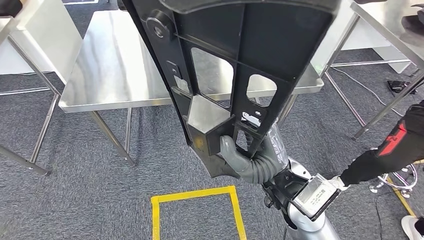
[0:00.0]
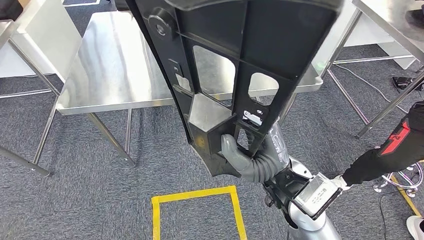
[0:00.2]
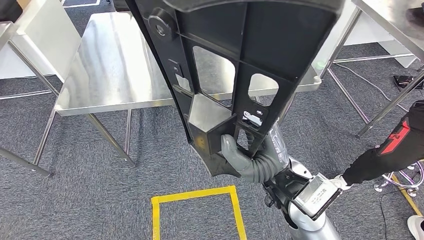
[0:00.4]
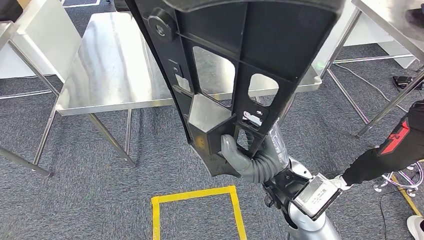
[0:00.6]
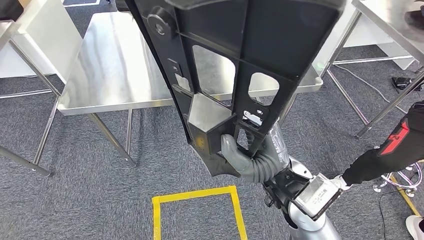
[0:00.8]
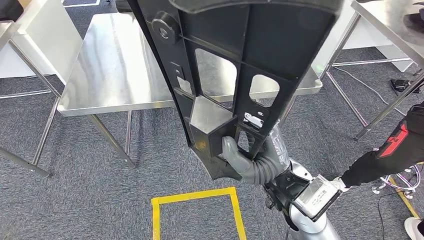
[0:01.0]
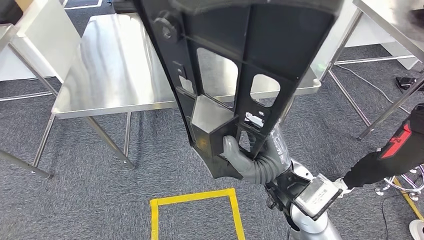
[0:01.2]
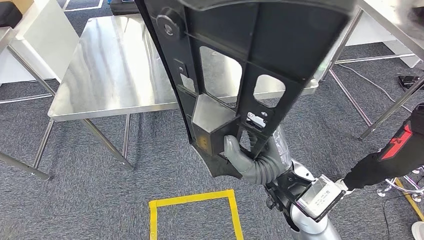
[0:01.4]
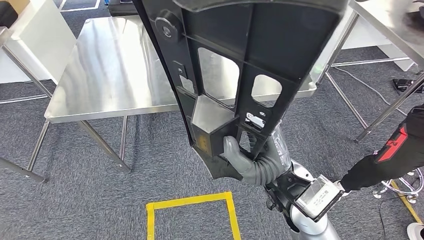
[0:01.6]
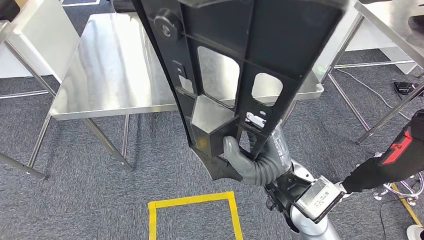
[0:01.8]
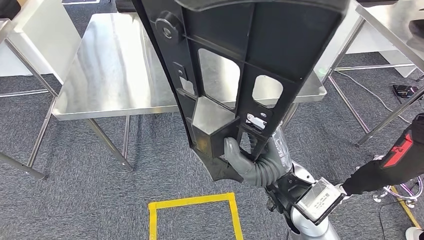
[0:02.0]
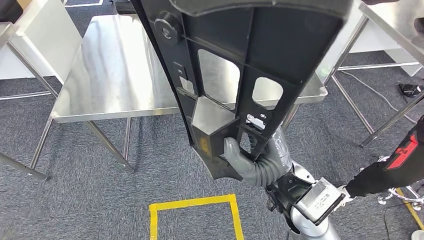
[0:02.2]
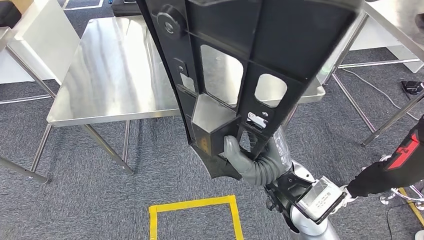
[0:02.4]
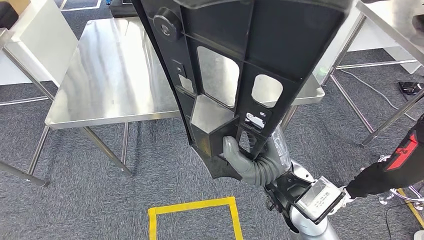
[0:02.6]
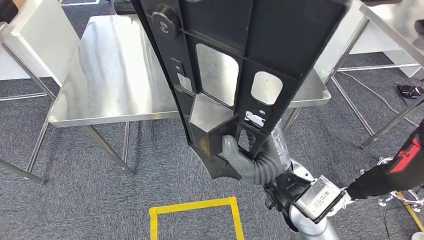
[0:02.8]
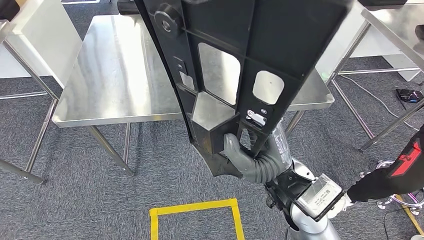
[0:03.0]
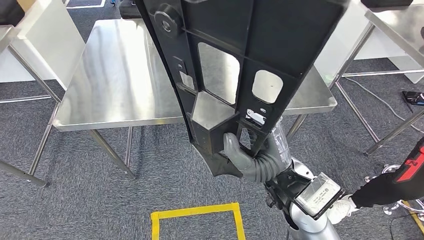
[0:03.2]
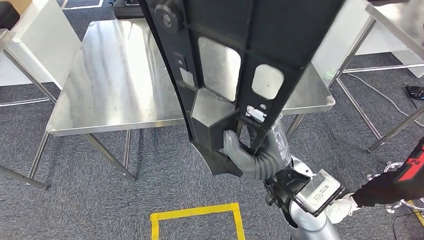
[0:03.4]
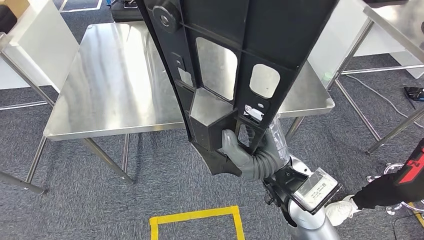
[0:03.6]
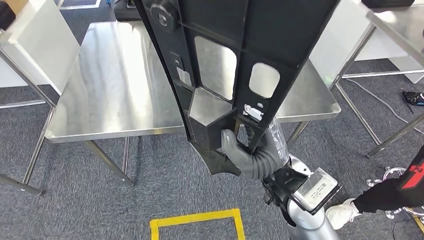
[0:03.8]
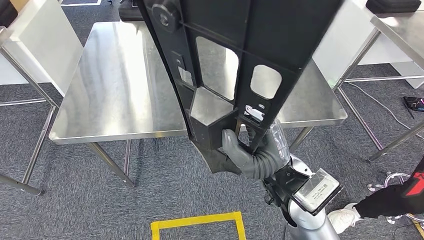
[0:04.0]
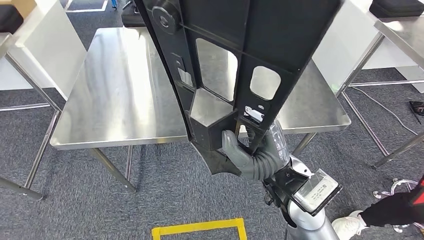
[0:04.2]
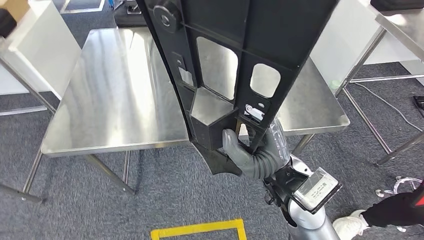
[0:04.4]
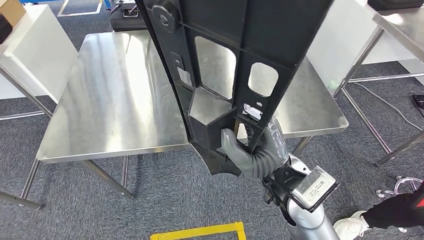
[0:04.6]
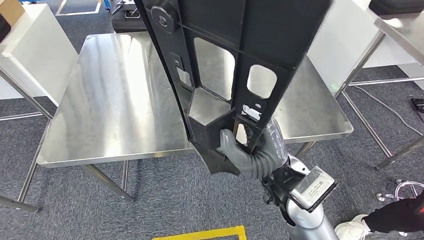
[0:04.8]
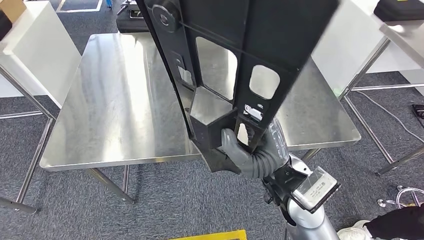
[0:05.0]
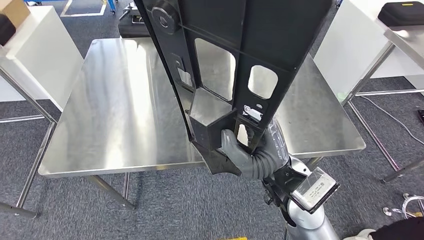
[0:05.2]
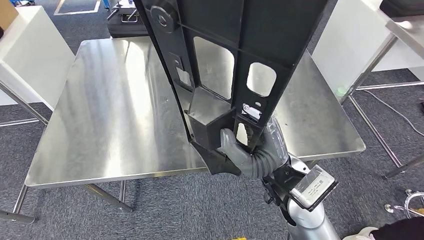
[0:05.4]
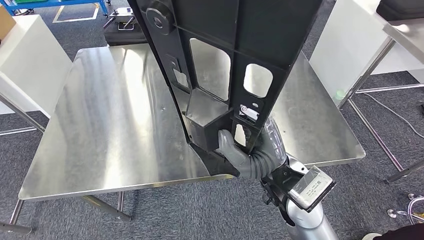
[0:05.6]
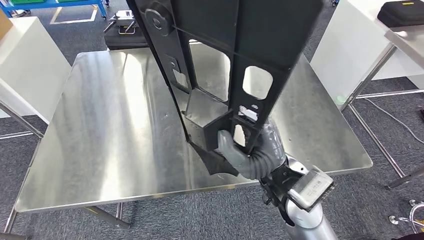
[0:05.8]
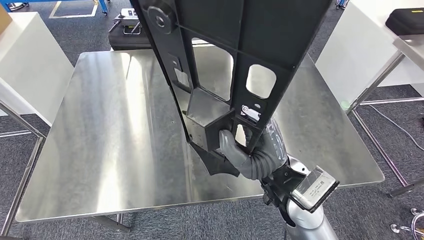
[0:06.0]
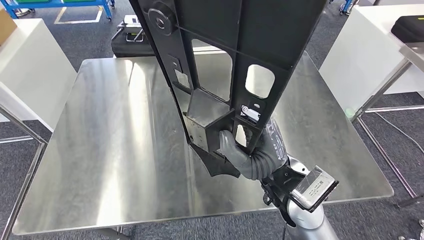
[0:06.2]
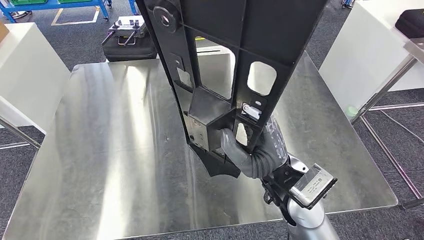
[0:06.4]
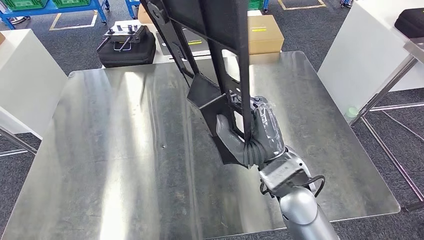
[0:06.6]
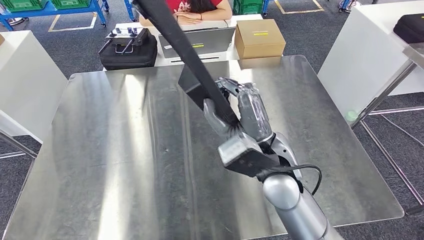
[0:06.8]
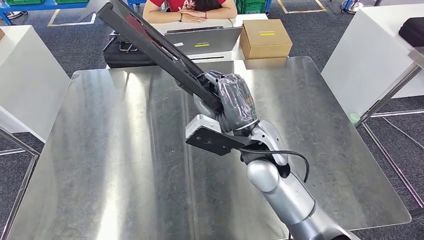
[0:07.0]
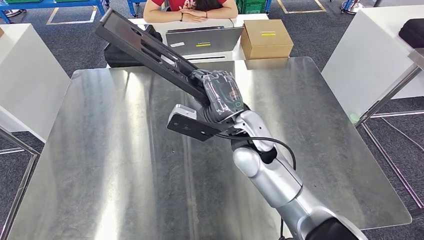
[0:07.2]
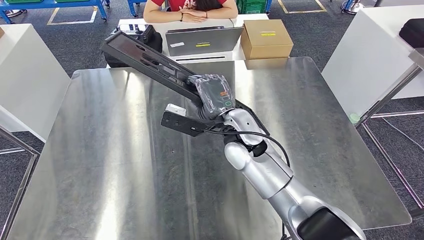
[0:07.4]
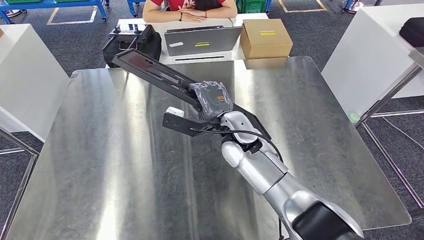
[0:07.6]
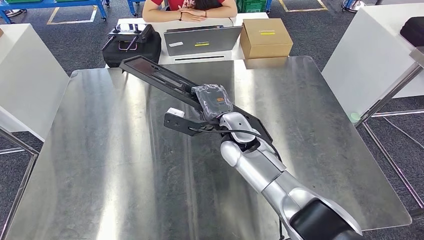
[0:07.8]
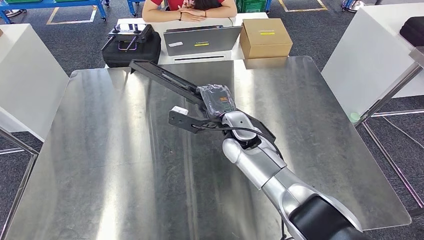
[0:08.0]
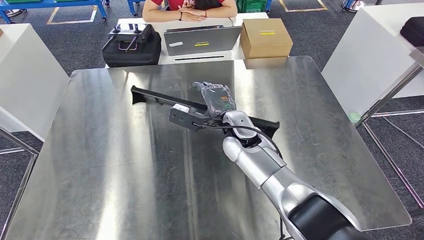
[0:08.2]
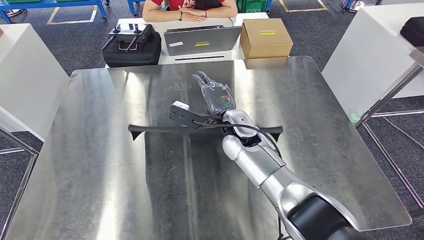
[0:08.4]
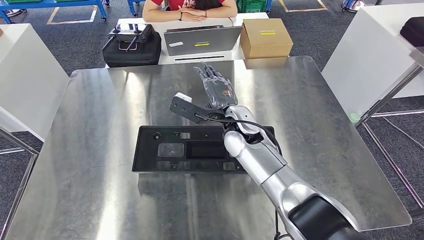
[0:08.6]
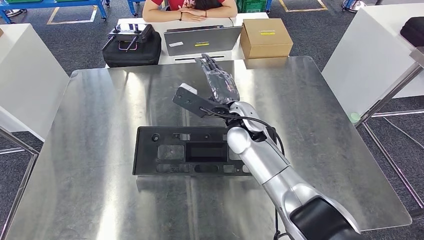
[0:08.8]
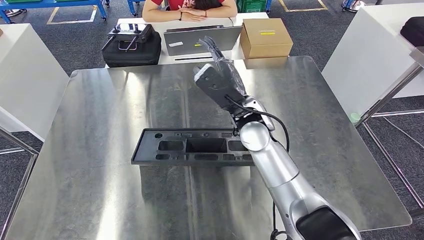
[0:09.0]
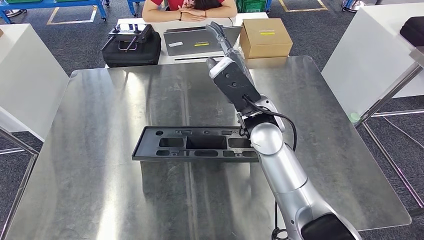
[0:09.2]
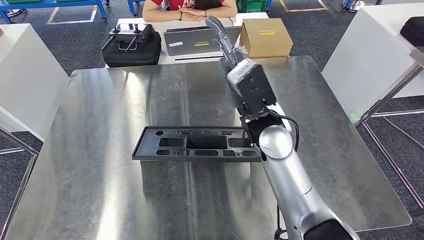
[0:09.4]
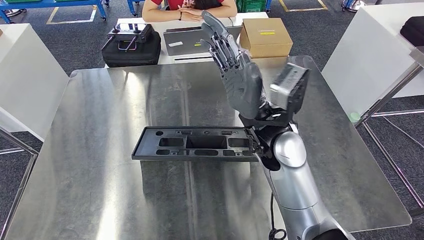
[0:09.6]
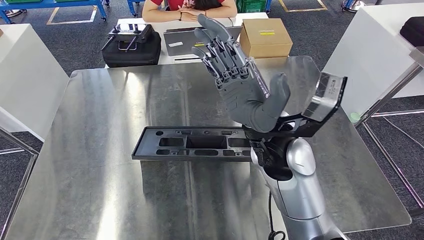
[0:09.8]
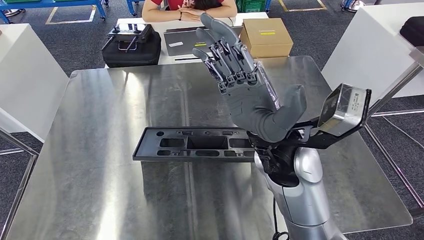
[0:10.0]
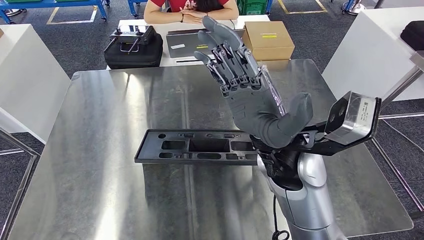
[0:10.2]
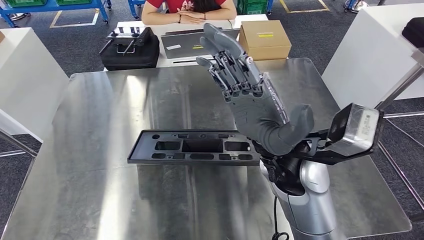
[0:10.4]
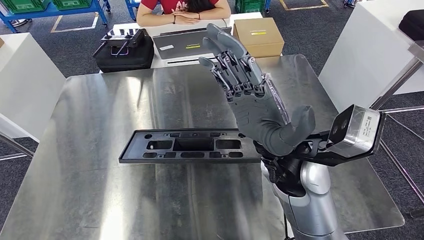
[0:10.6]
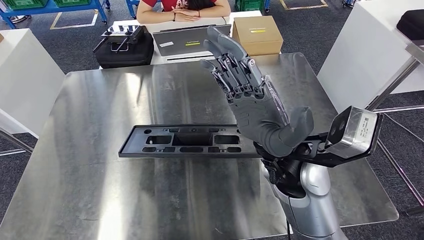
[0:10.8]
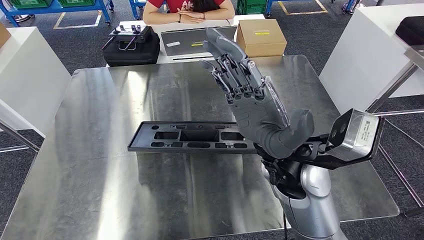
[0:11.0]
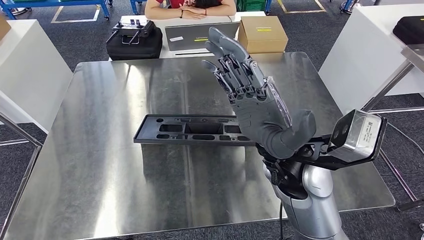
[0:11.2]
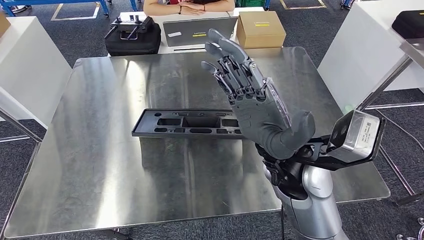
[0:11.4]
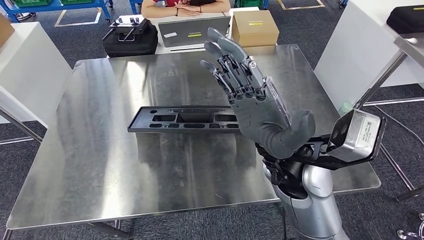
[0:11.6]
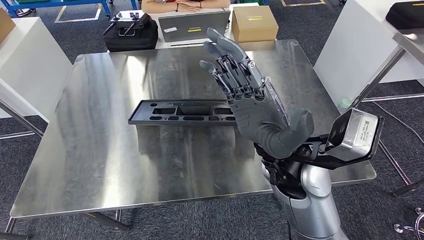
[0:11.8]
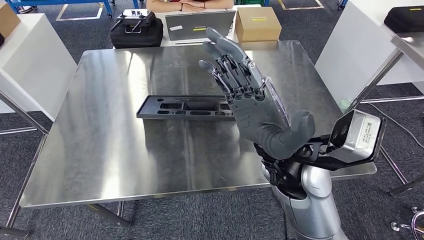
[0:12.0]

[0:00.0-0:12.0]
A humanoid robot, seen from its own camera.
Step, 0:00.0 to 0:02.8: Move the large parts to the workbench.

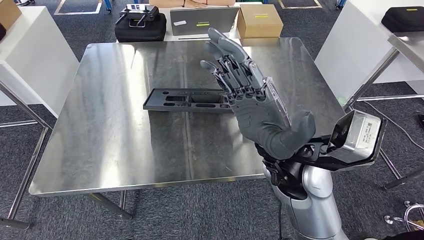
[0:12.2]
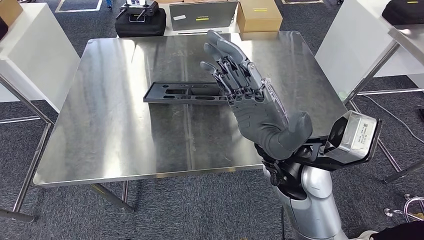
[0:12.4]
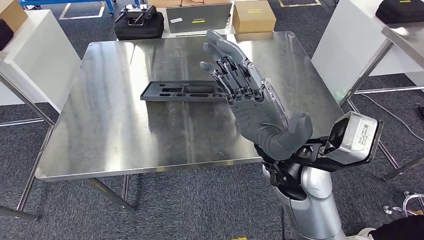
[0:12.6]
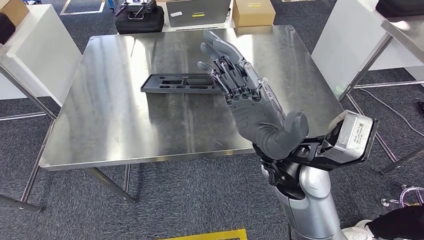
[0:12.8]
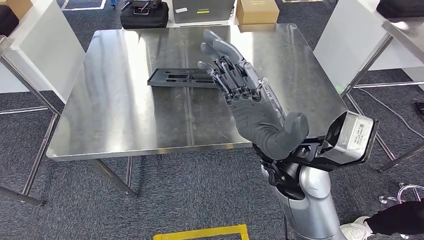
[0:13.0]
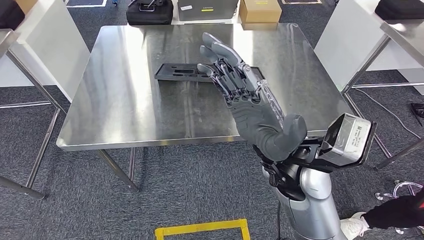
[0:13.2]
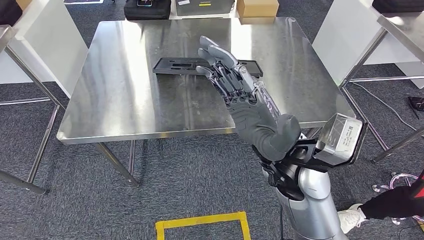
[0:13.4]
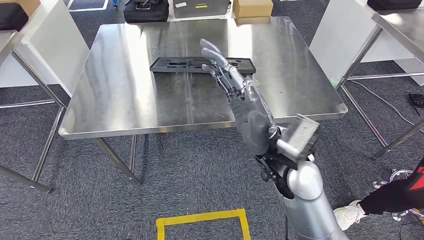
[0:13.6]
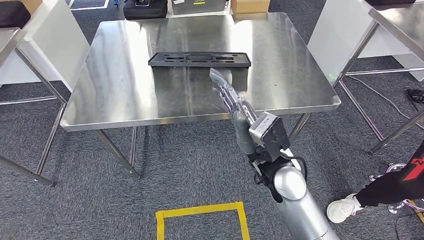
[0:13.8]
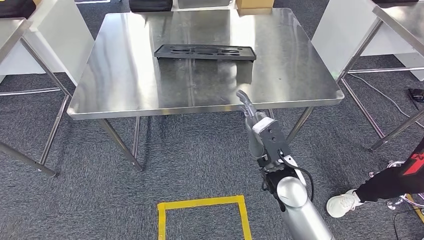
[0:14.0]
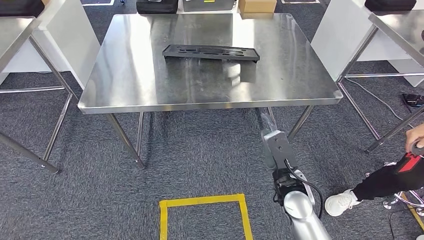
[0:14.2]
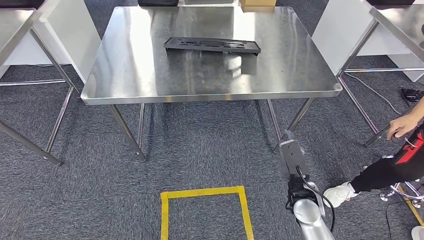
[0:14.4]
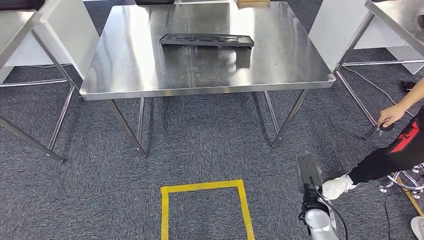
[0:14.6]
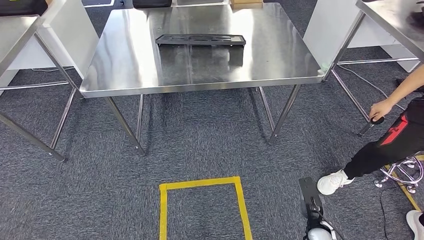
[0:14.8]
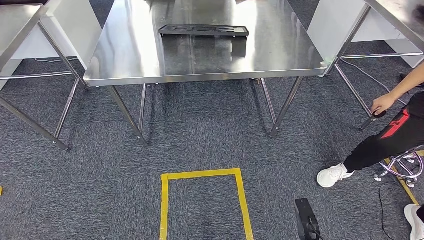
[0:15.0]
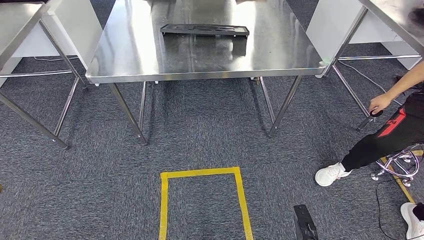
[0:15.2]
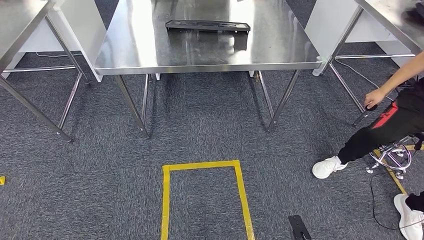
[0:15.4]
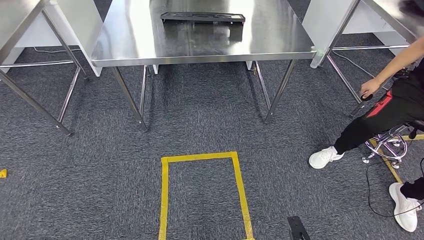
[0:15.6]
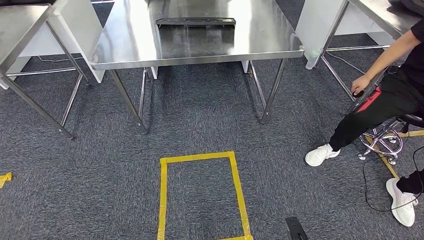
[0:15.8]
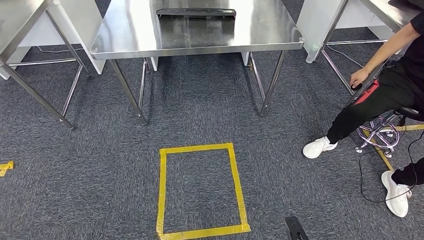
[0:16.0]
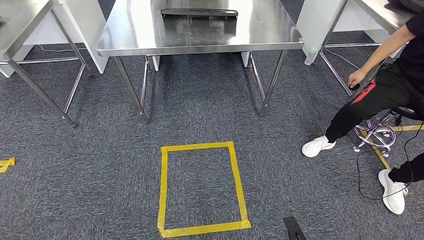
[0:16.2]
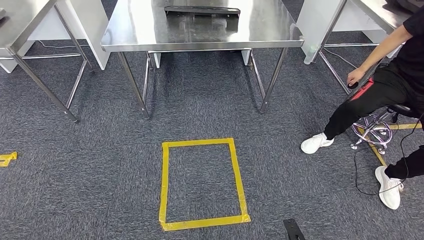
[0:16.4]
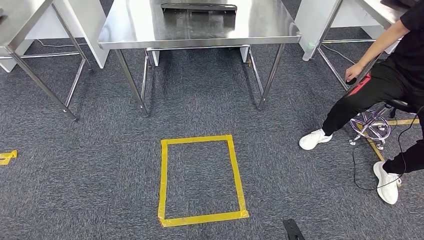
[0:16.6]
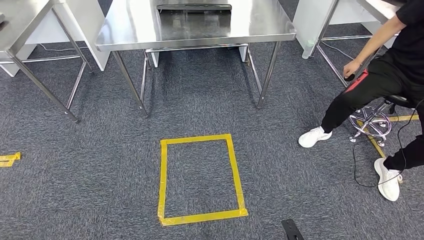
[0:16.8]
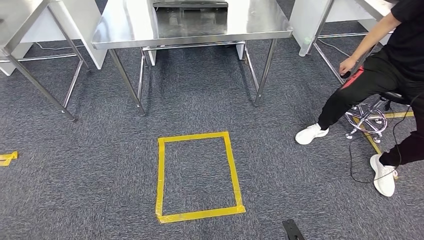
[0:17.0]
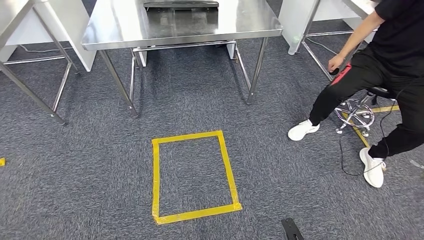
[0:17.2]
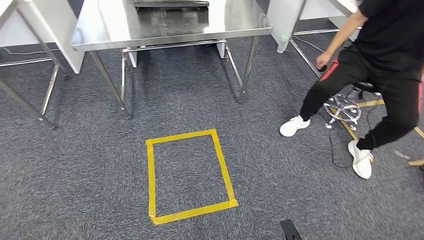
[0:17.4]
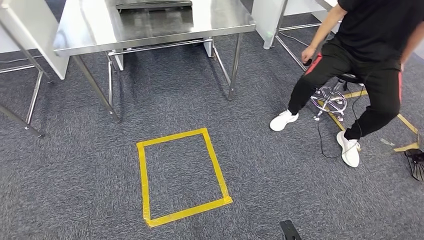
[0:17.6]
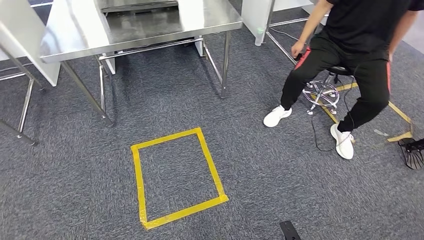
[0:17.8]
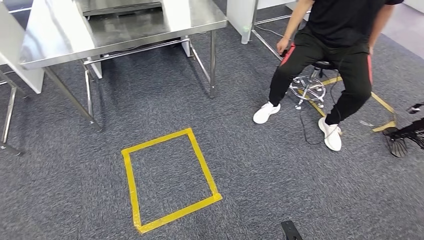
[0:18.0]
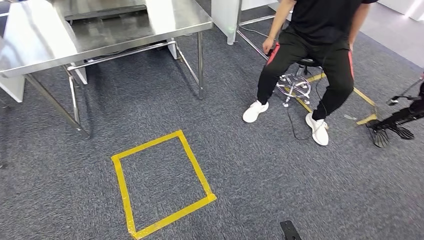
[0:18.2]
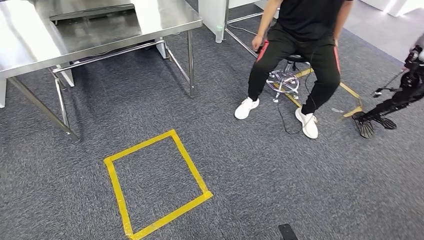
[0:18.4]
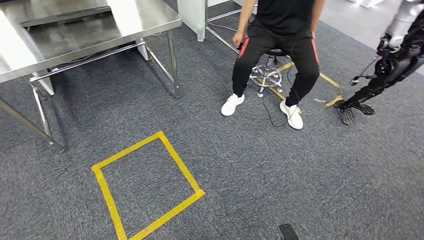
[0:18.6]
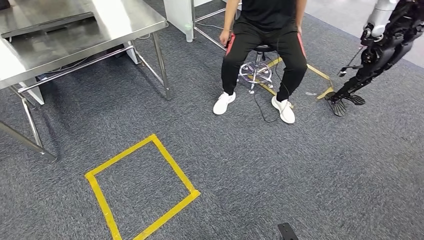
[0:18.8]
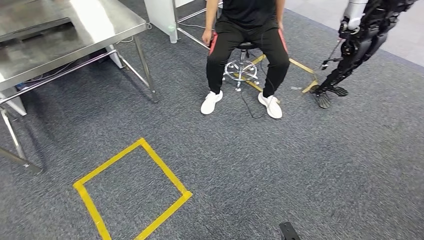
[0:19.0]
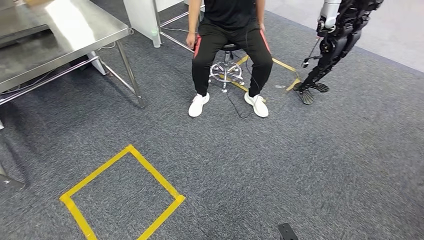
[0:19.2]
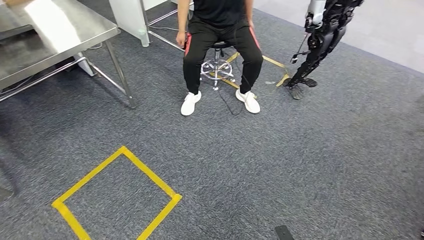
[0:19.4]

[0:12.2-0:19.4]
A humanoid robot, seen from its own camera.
Step, 0:12.2 to 0:15.8: Insert the large parts into the corresponding slots on the workbench.
